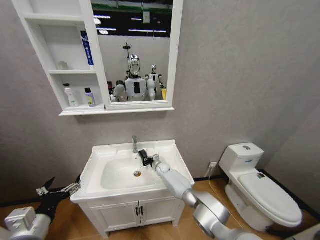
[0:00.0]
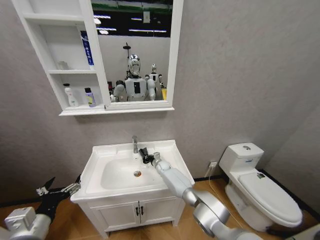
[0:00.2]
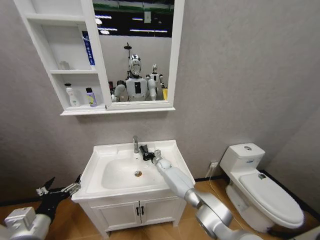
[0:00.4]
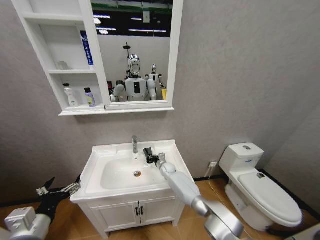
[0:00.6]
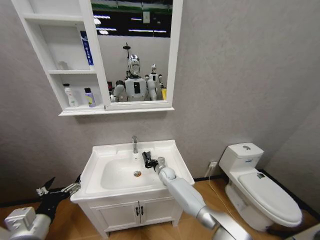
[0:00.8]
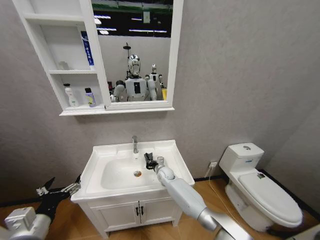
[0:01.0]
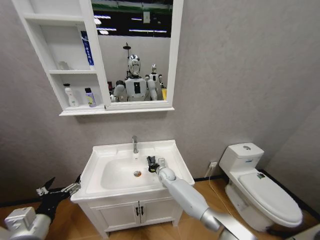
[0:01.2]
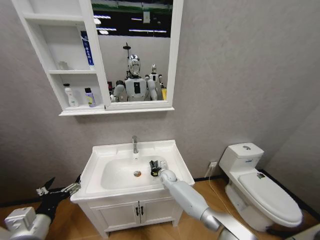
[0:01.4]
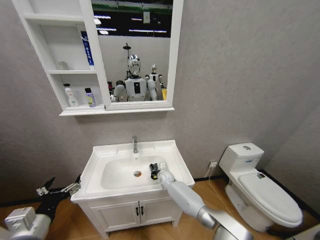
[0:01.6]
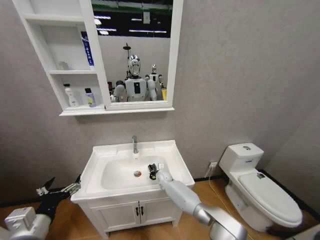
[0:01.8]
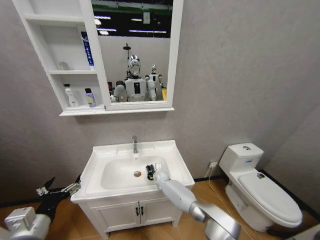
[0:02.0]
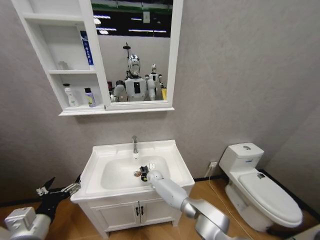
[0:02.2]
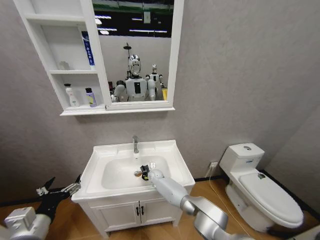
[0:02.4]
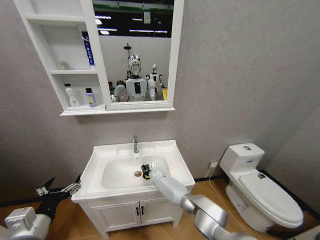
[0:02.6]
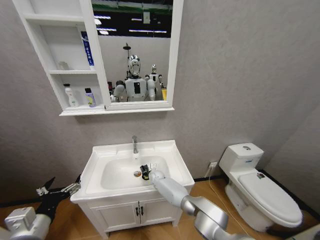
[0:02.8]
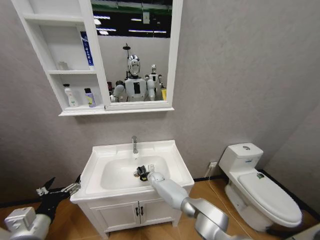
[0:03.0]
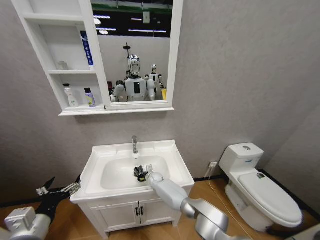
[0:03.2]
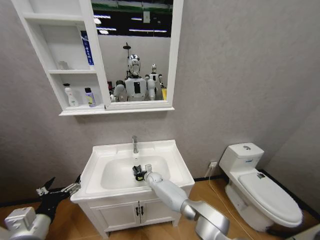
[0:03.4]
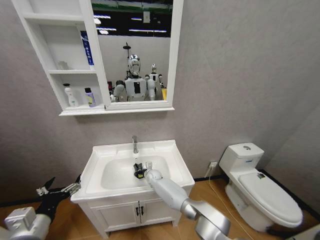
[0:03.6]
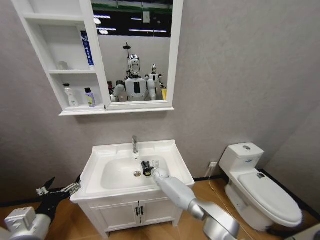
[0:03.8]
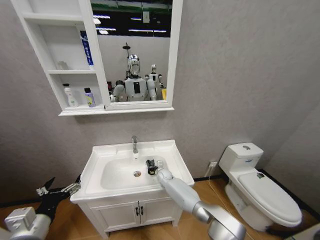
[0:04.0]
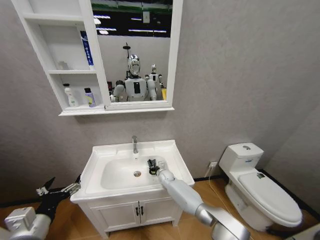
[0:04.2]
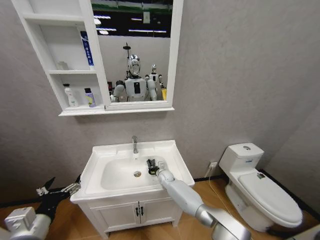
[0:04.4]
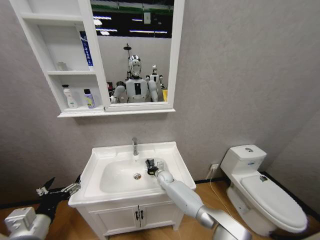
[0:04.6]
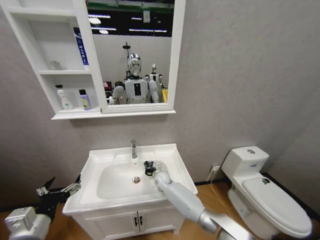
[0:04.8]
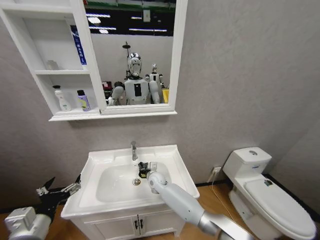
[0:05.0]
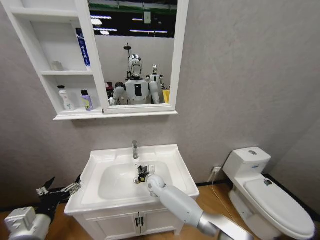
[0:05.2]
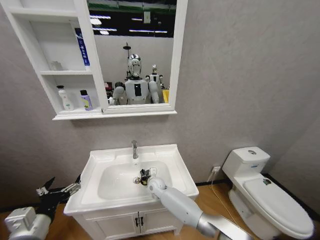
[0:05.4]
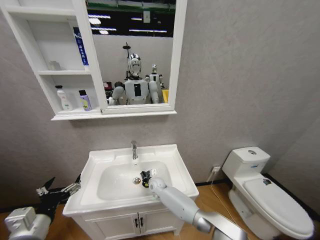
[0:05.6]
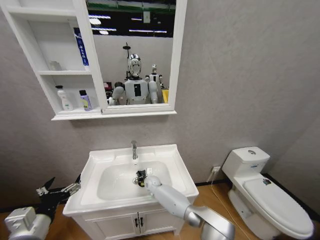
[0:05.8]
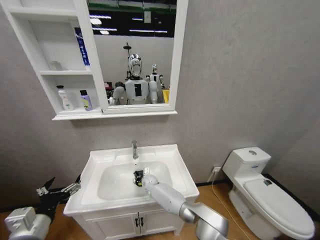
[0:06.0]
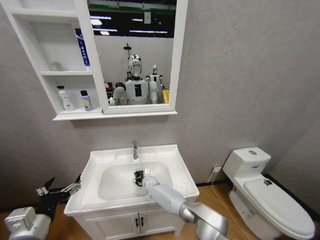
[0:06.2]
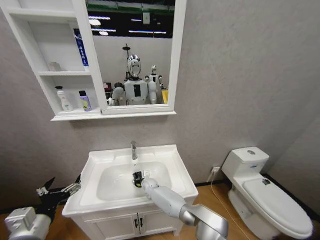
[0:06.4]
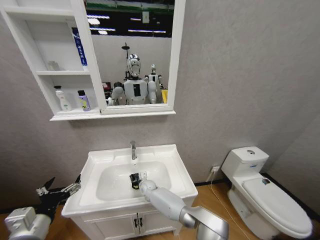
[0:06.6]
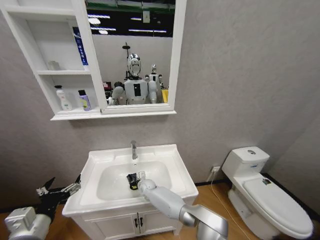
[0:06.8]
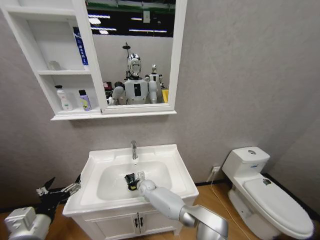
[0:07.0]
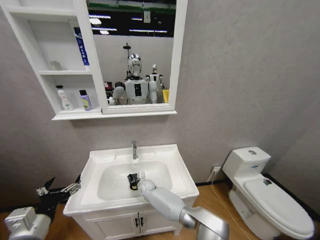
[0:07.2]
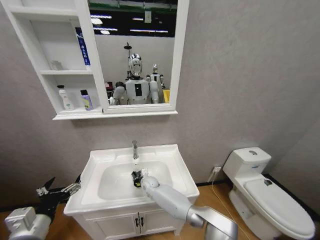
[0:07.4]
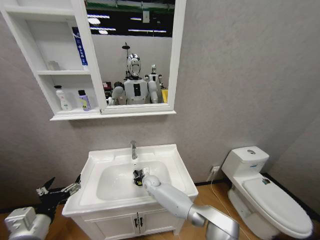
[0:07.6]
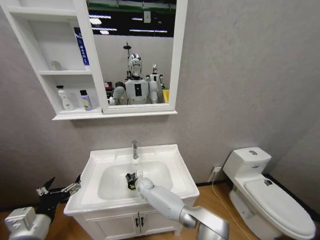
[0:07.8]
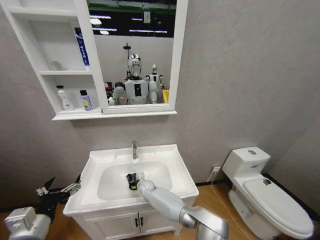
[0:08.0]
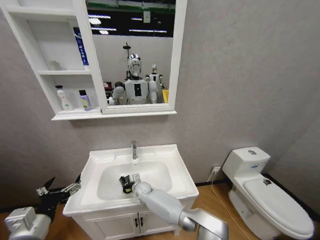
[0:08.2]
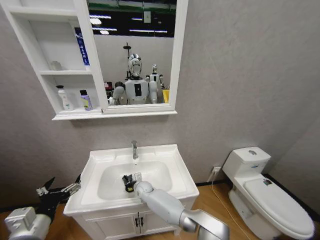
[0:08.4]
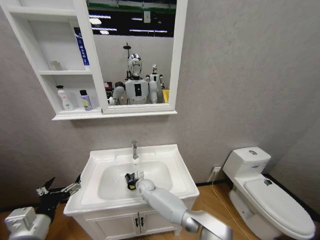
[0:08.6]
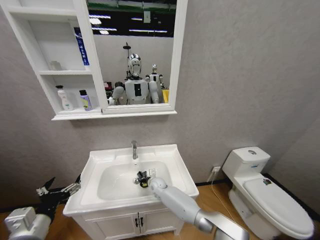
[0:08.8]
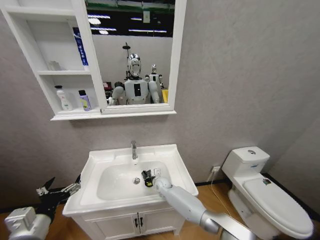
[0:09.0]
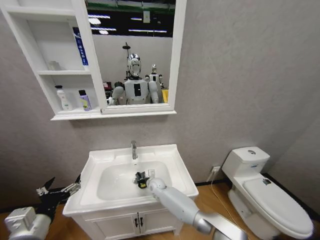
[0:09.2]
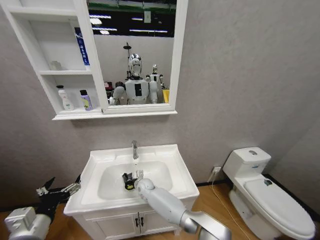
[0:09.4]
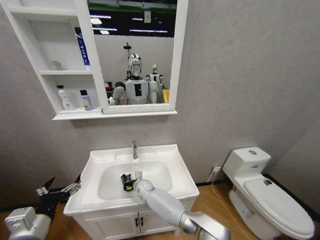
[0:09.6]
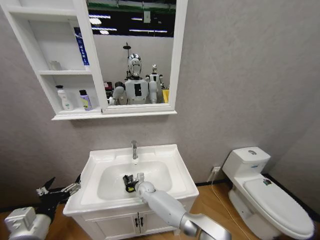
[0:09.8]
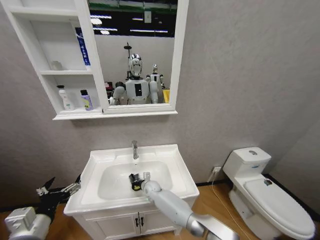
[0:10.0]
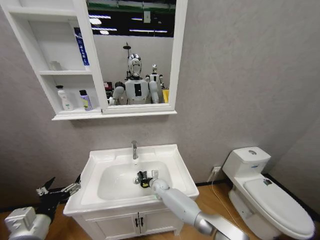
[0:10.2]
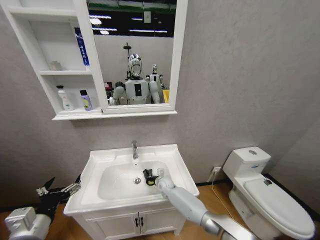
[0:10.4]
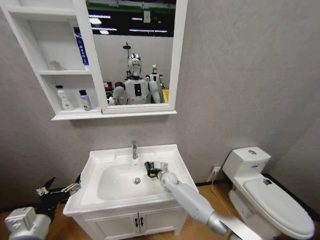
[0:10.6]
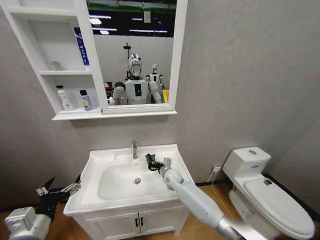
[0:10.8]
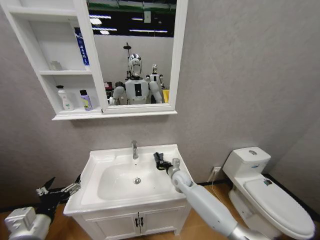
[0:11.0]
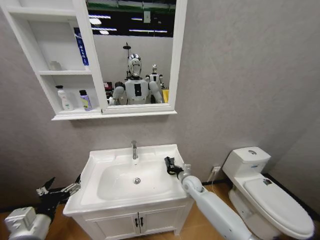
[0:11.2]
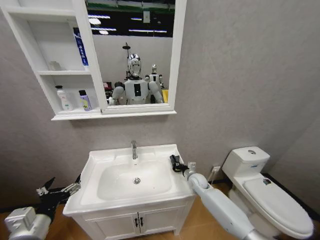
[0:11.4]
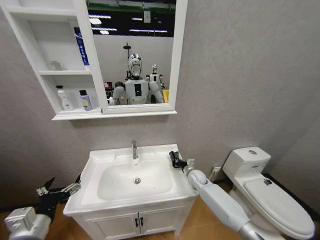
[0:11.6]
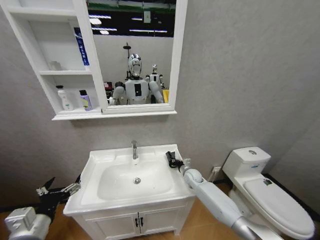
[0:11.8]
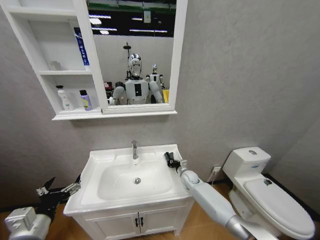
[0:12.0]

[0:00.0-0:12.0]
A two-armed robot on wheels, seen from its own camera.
Task of the whole recording: Move facial cleanser and shampoo from washbasin to cabinet, then wipe washbasin with towel.
0:00.0 to 0:01.6: The right gripper moves backward, about 5 cm.
0:01.6 to 0:03.0: The right gripper travels to the left by about 5 cm.
0:03.0 to 0:04.4: The right gripper shifts roughly 5 cm to the right.
0:04.4 to 0:06.0: The right gripper heads to the left, covering some 10 cm.
0:06.0 to 0:07.6: The grippers make only small movements.
0:07.6 to 0:09.0: The right gripper moves to the right, approximately 5 cm.
0:09.0 to 0:10.4: The right gripper reaches roughly 10 cm to the left, then returns.
0:10.4 to 0:12.0: The right gripper moves to the right, roughly 15 cm.

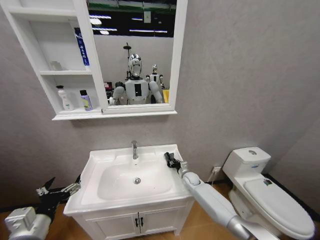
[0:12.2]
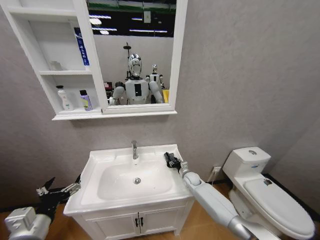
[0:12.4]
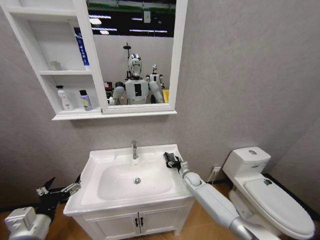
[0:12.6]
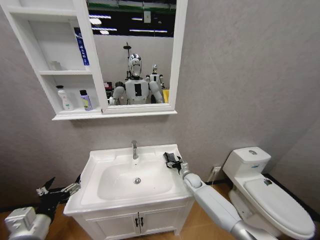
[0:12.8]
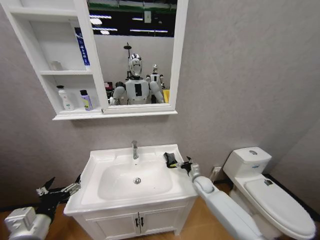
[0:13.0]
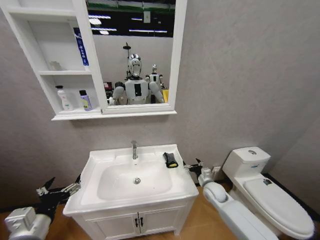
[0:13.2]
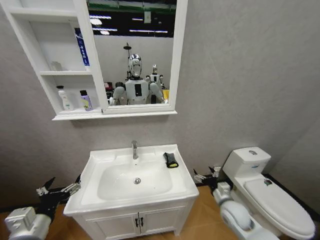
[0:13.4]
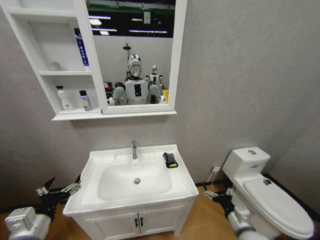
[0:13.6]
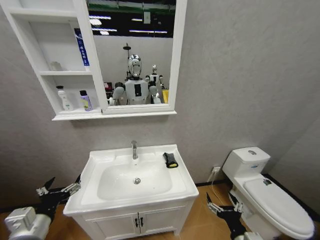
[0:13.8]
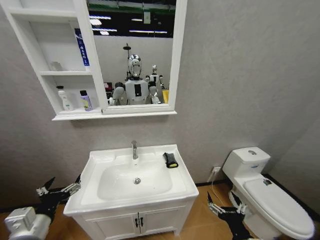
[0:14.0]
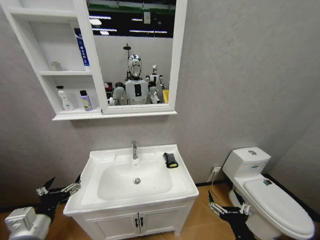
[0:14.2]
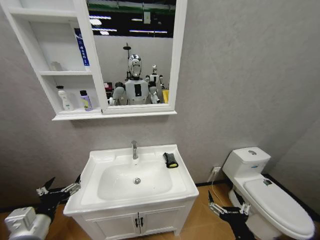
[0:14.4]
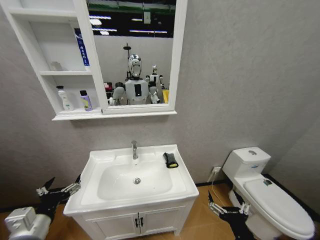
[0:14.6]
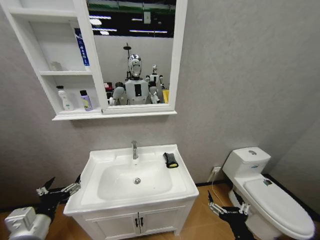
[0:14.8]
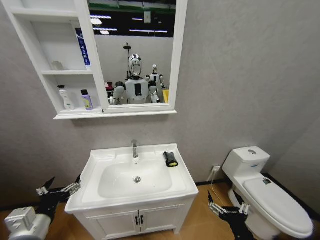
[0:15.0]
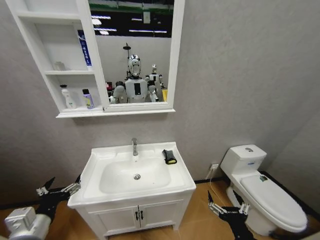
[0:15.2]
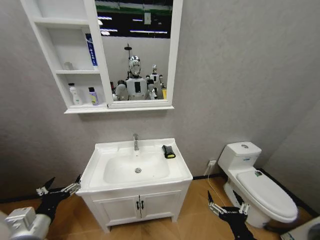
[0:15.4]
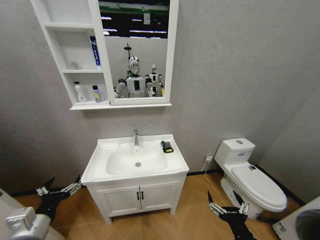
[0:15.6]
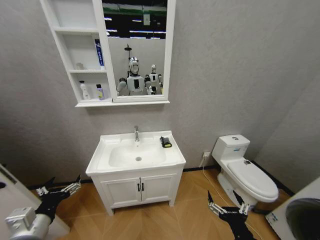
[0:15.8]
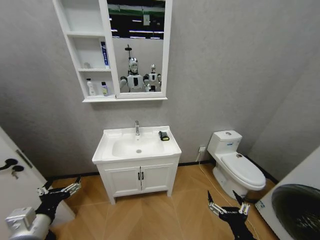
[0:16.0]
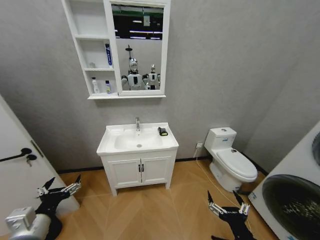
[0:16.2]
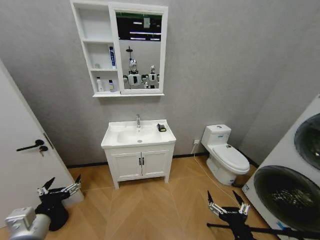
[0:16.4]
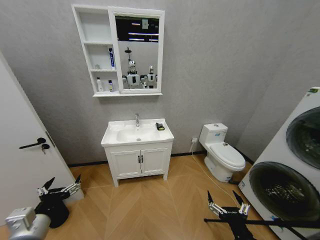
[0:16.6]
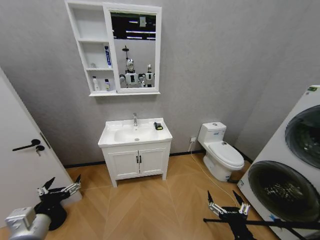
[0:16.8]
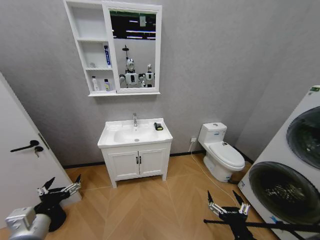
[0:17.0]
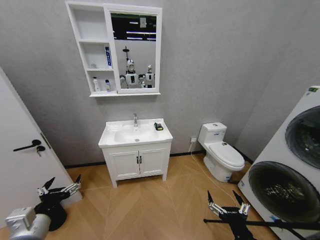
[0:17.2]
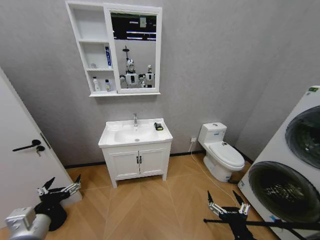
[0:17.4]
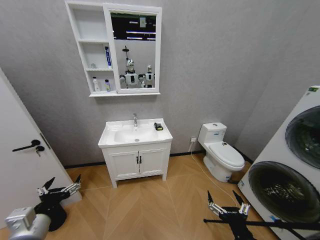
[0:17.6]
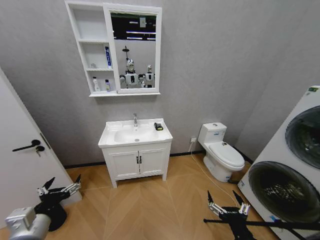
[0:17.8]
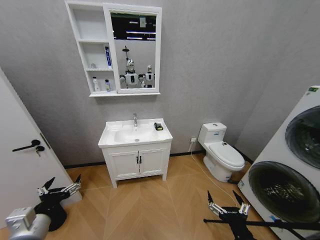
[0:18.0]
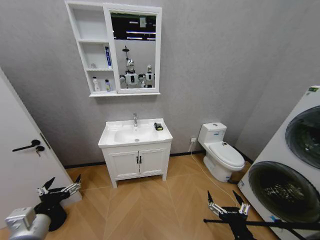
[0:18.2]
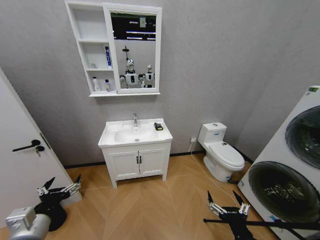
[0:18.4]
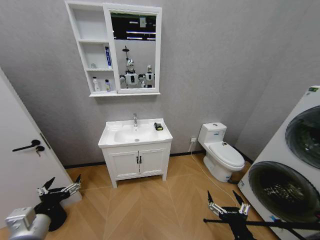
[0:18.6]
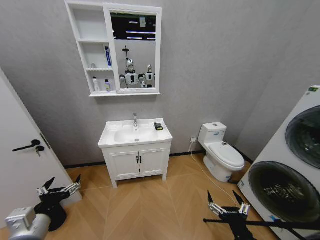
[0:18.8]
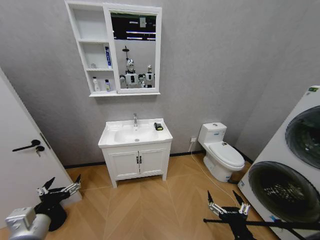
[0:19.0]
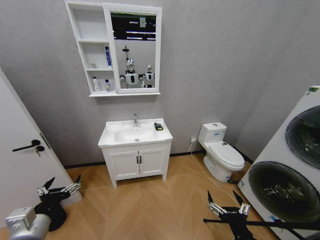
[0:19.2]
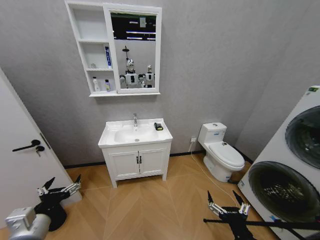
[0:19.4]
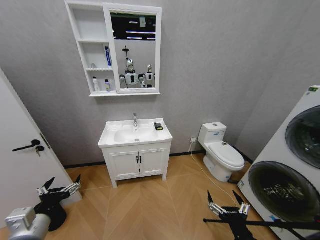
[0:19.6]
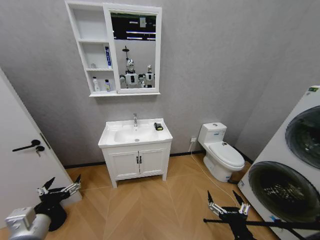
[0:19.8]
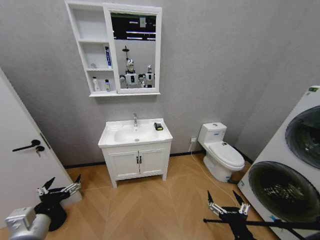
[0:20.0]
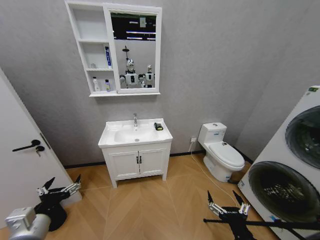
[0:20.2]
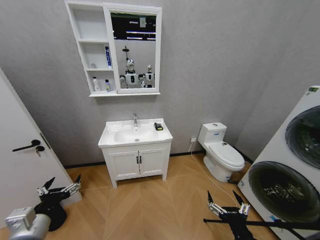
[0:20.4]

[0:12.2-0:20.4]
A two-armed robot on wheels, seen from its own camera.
Task of the whole recording: Move facial cleanser and shampoo from washbasin to cabinet, then wipe washbasin with towel.
0:12.2 to 0:13.8: The right gripper shifts roughly 35 cm backward, and opens.
0:13.8 to 0:15.4: The right gripper ends up approximately 5 cm from where it was.
0:17.2 to 0:20.4: Neither gripper changes place.
